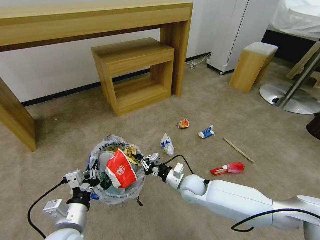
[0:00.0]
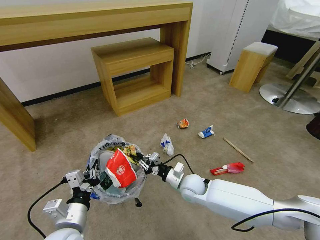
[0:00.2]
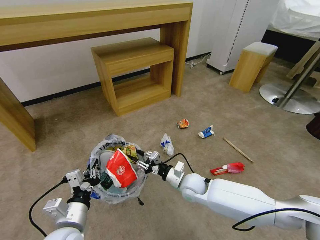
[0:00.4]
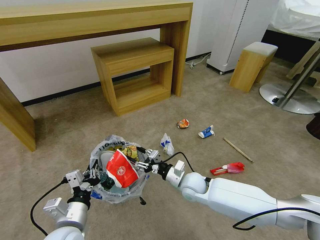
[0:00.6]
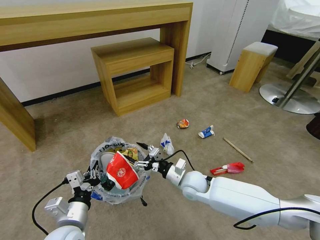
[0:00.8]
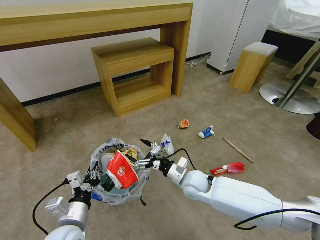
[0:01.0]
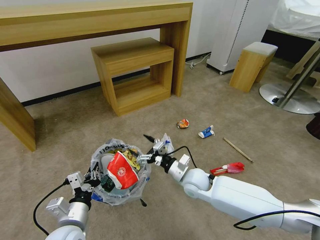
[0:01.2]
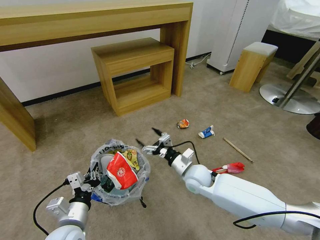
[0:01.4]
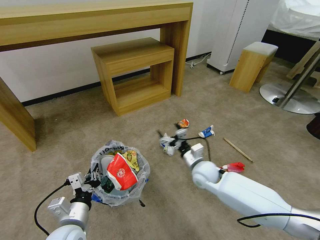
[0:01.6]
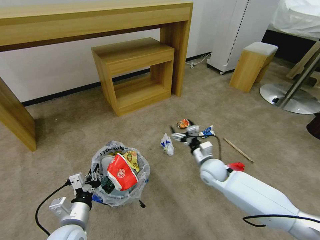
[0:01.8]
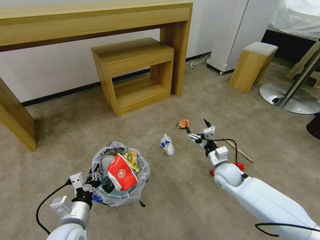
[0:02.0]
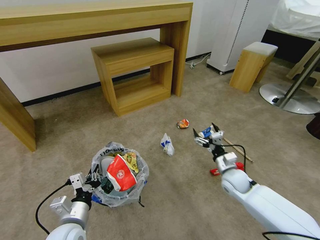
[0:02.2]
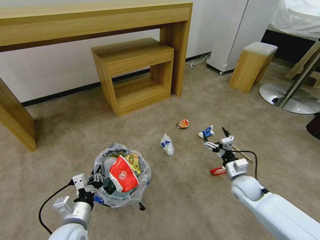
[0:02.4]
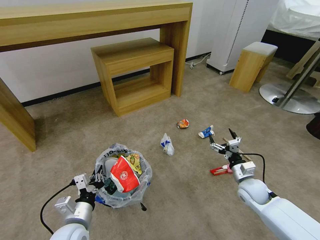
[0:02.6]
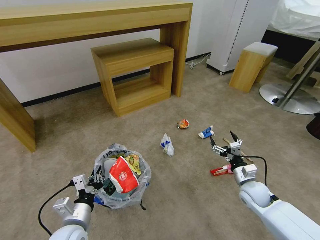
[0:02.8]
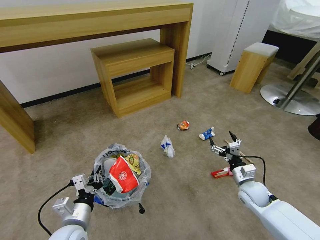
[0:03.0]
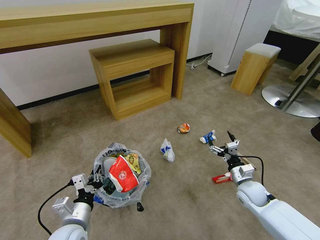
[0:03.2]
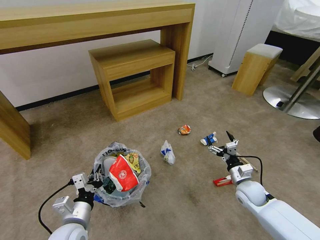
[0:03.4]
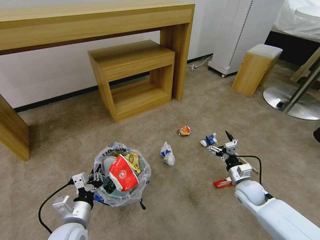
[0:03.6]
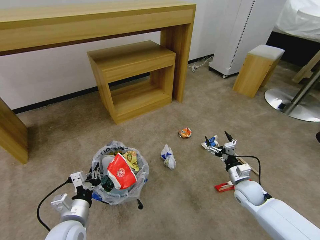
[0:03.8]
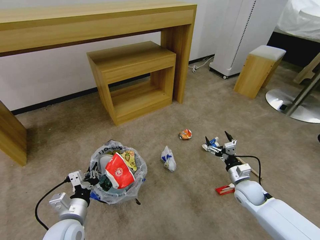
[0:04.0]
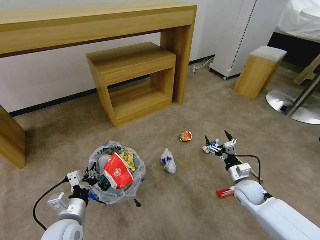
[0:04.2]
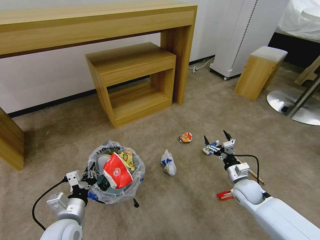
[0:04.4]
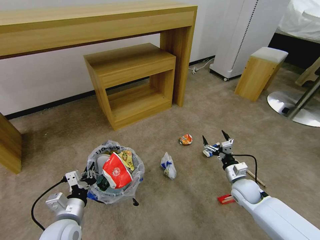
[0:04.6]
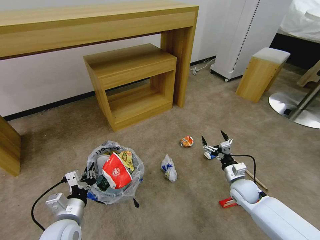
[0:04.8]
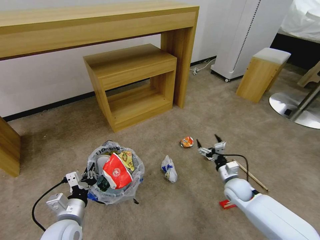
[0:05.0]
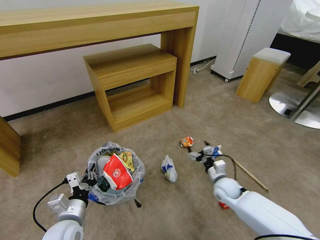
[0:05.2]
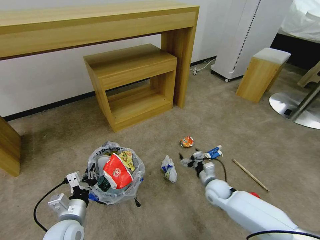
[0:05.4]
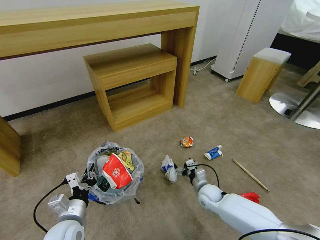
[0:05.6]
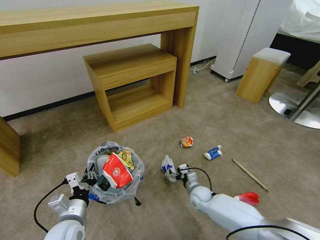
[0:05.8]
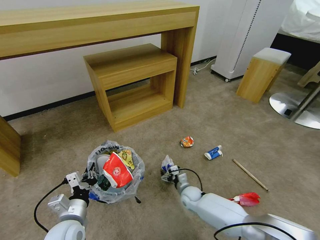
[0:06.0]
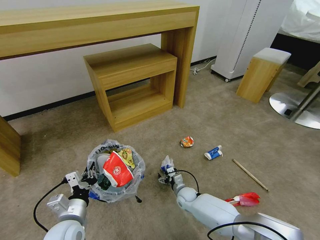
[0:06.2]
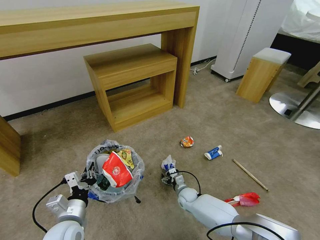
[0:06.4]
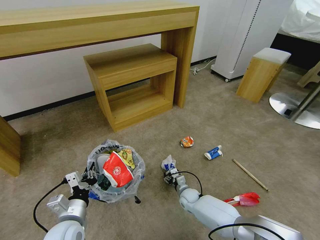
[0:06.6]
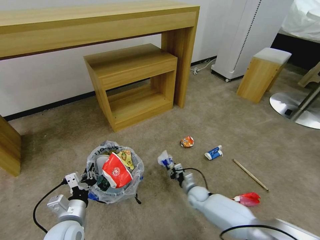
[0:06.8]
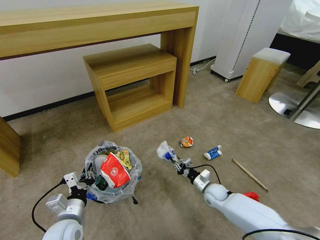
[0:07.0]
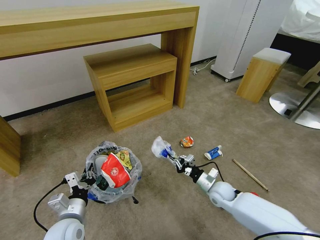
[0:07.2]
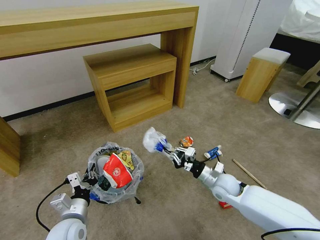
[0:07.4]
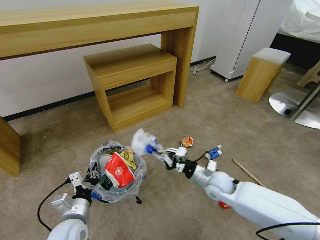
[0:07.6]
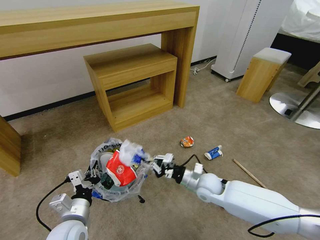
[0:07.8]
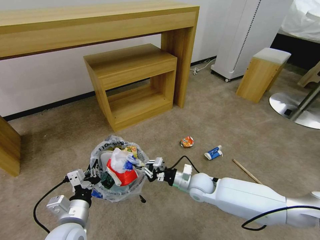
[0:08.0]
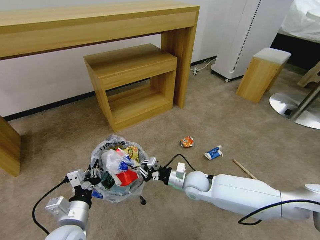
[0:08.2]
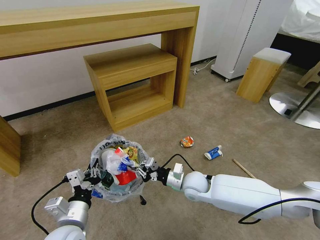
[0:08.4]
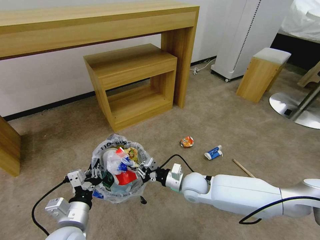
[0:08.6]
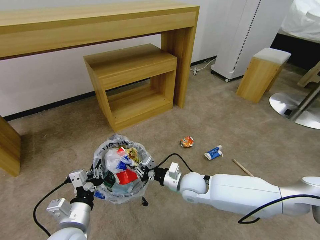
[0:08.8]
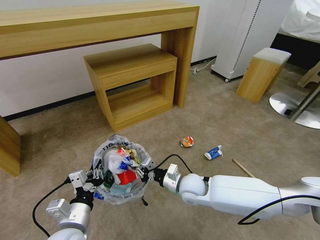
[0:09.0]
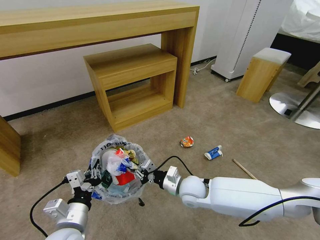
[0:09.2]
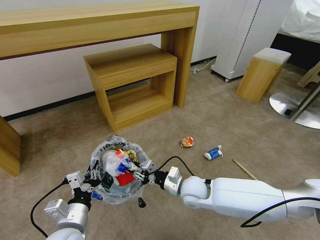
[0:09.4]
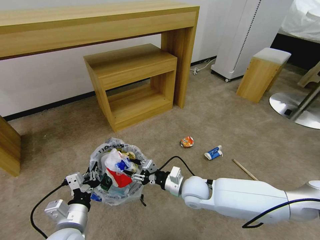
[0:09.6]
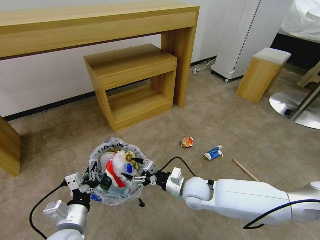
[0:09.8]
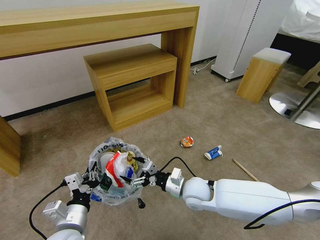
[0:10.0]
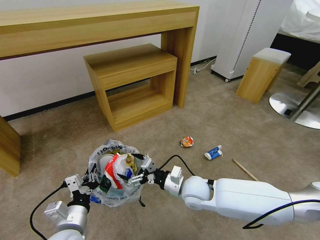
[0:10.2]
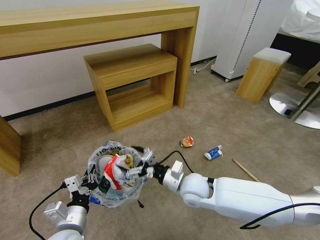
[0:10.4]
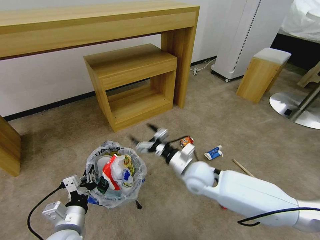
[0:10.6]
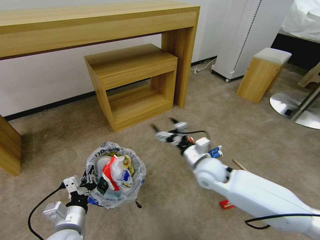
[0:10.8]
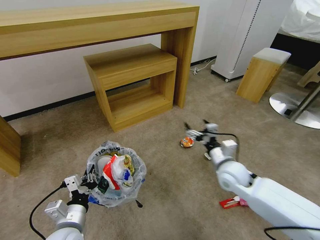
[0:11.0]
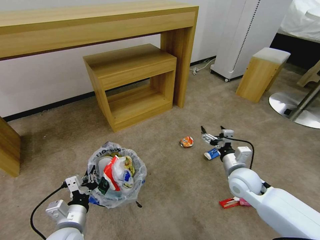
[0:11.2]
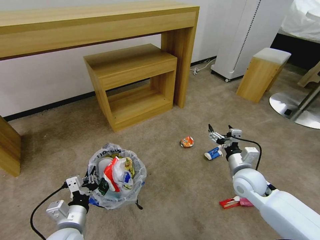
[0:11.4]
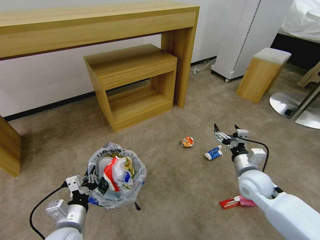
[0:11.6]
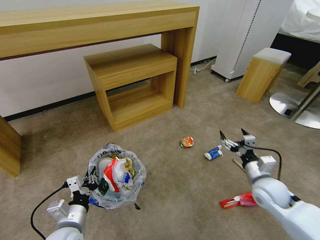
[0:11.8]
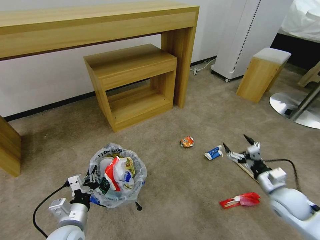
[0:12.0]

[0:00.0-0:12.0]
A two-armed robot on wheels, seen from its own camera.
Task of the whole recording: Pick up the trash bin and place the garbage on the floor into it.
0:00.0 to 0:01.6: The right gripper moves upward, approximately 5 cm, and opens its fingers.
0:01.6 to 0:03.0: The right gripper heads to the right, covering approximately 20 cm.
0:04.4 to 0:06.0: The right gripper goes approximately 25 cm to the left and downward.
0:06.0 to 0:07.6: The right gripper is displaced upward by roughly 20 cm, and closes up.
0:07.6 to 0:09.0: The right gripper heads to the left, covering about 10 cm; the left gripper moves some 5 cm.
0:09.0 to 0:10.4: The right gripper opens up.
0:10.4 to 0:12.0: The right gripper heads to the right, covering some 30 cm.

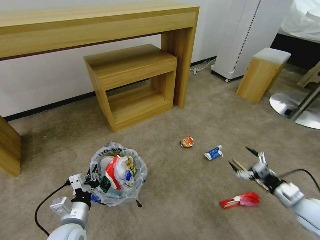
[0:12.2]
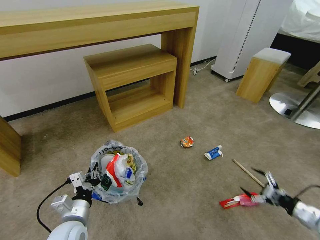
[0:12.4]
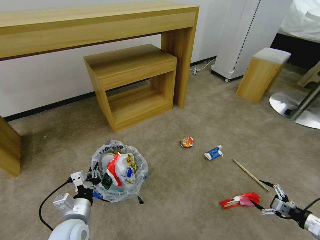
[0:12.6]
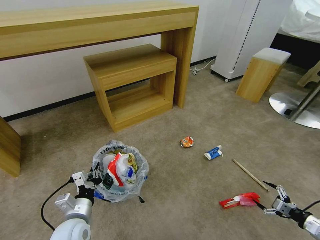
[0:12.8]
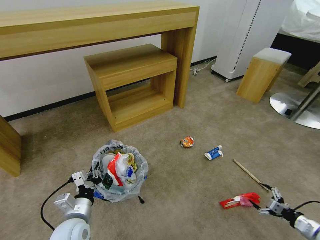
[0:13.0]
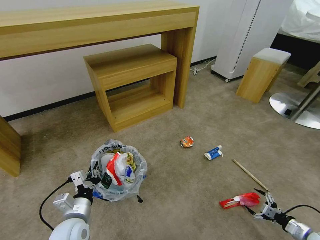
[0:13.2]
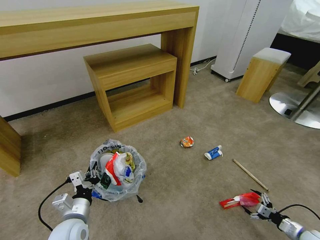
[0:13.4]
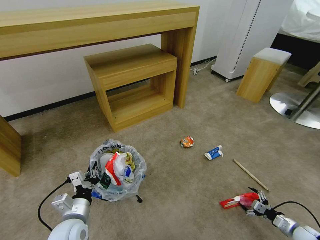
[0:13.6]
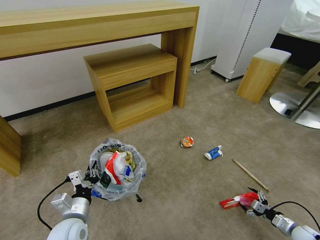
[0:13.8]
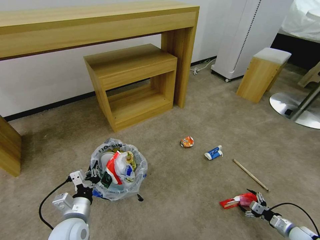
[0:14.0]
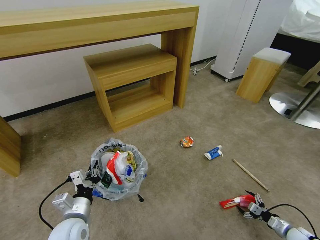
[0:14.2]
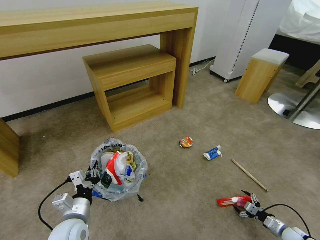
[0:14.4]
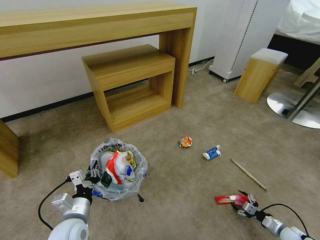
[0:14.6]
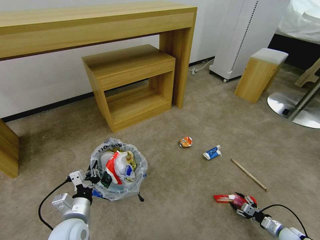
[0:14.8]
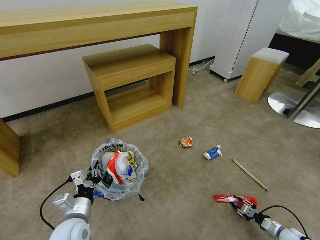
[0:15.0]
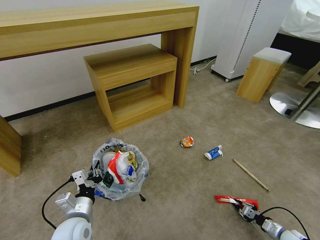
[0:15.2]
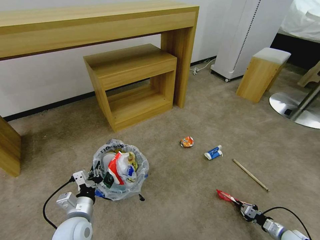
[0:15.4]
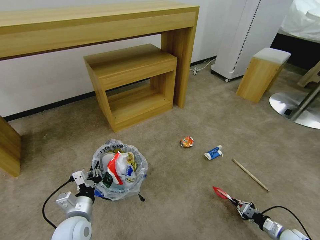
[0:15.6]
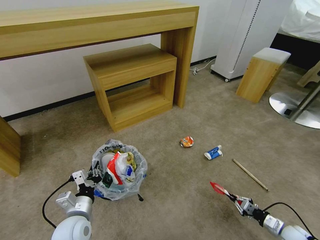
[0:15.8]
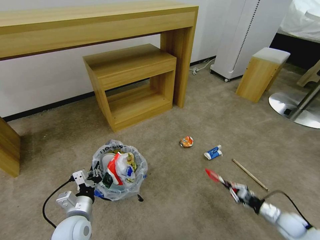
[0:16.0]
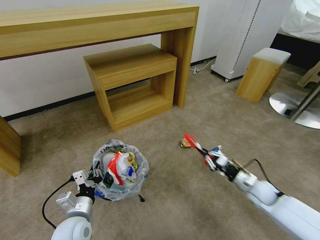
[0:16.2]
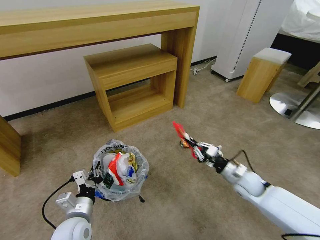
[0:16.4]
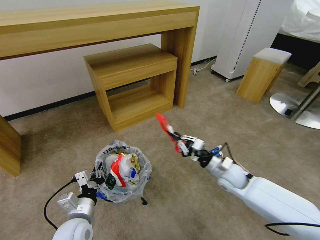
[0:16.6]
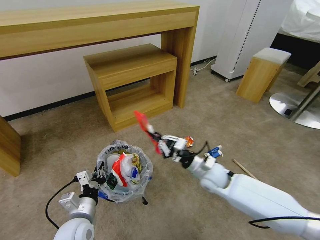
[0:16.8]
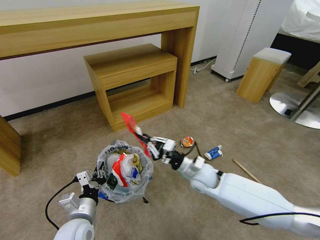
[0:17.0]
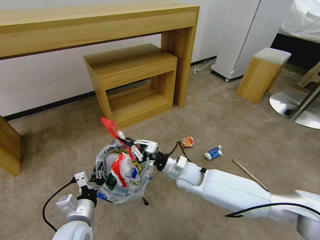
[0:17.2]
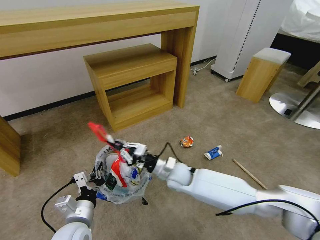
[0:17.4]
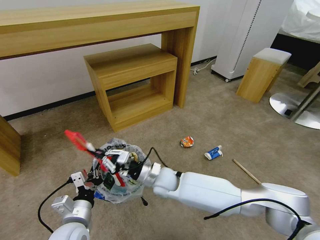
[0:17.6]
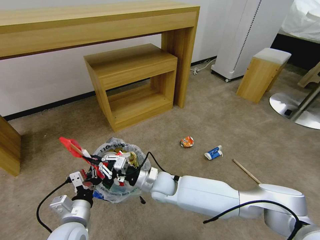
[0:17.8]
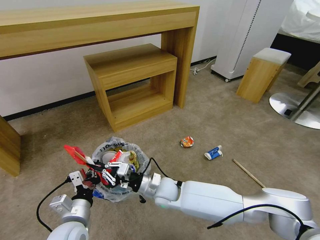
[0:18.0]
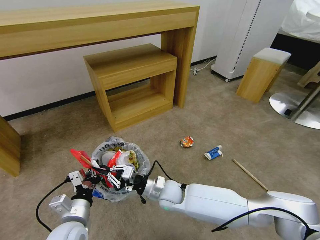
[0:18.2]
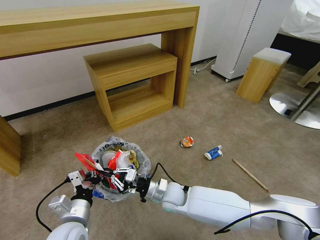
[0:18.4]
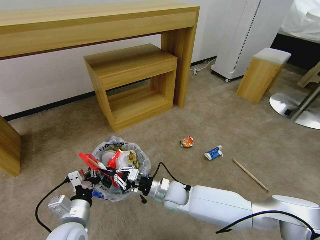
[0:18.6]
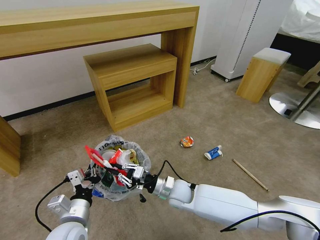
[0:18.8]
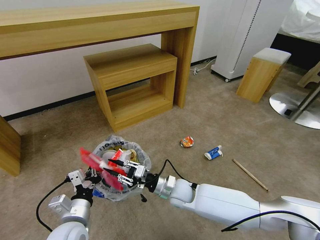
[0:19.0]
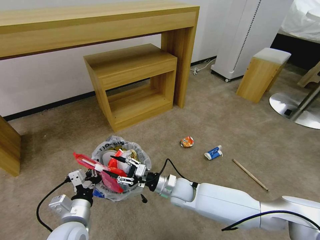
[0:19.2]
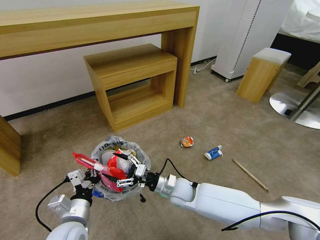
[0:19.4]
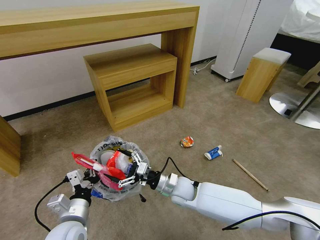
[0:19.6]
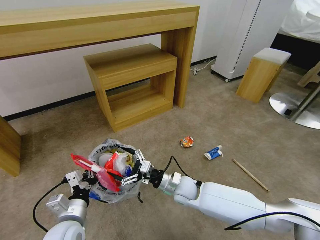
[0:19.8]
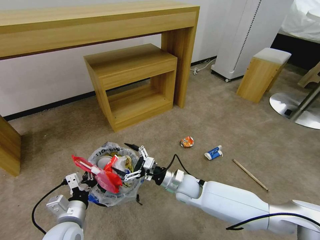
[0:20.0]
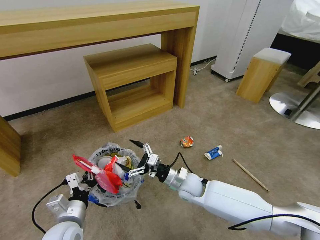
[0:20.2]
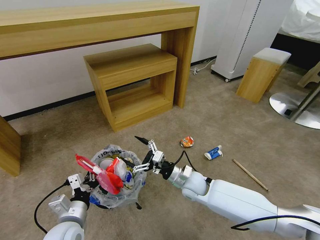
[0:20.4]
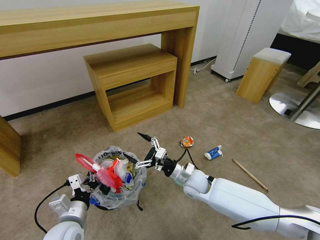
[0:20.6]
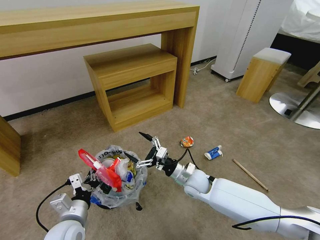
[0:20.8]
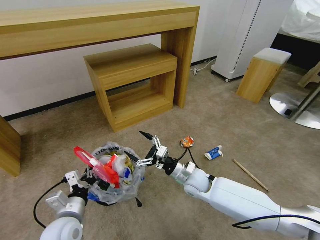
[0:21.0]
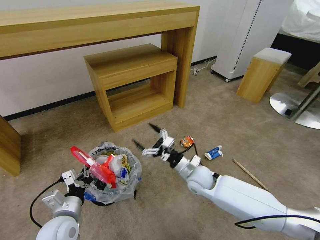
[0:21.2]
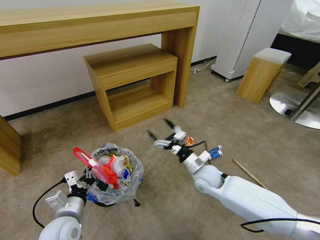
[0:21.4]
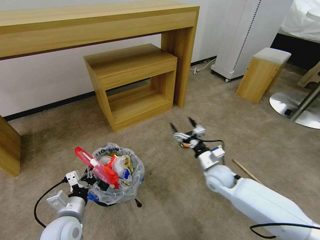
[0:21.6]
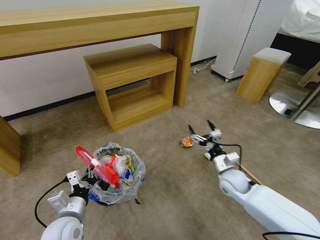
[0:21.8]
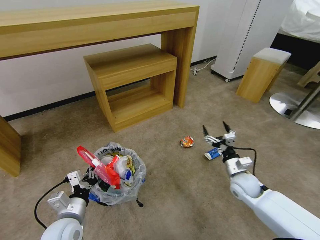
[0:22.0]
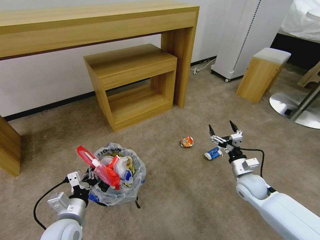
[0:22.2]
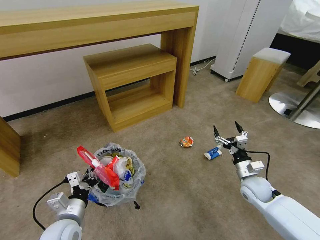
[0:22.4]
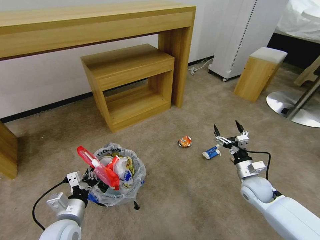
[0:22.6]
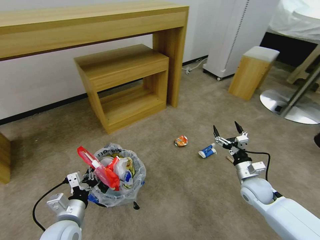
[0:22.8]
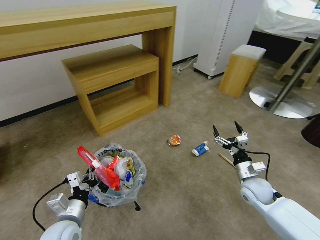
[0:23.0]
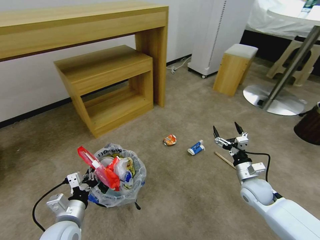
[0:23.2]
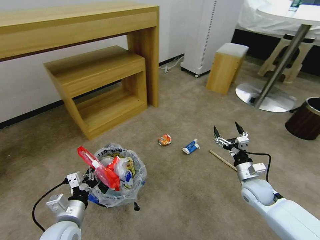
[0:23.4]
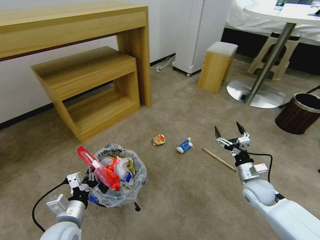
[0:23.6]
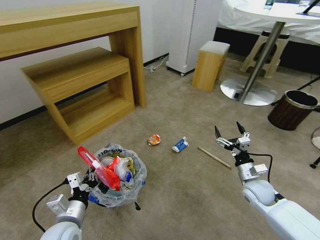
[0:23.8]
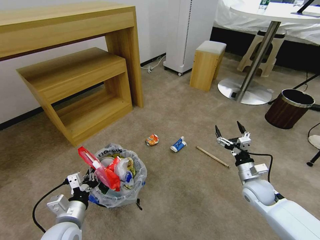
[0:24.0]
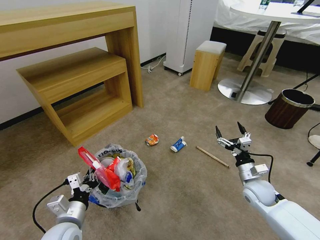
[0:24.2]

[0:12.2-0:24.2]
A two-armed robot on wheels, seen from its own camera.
Task of the whole recording: Pick up the trash bin and place the garbage on the floor into it.
0:12.2 to 0:13.8: The right gripper shifts approximately 20 cm downward and to the right.
0:13.8 to 0:15.2: The right gripper closes up.
0:15.2 to 0:16.6: The right gripper shifts approximately 40 cm to the left, upward and forward.
0:16.6 to 0:18.2: The right gripper heads to the left, covering roughly 25 cm.
0:18.2 to 0:19.8: The right gripper is displaced to the right by roughly 5 cm, and opens its fingers.
0:19.8 to 0:21.2: The right gripper goes some 5 cm to the right.
0:21.2 to 0:22.6: The right gripper goes about 20 cm to the right.
